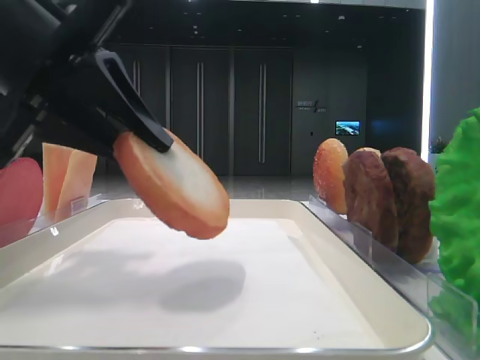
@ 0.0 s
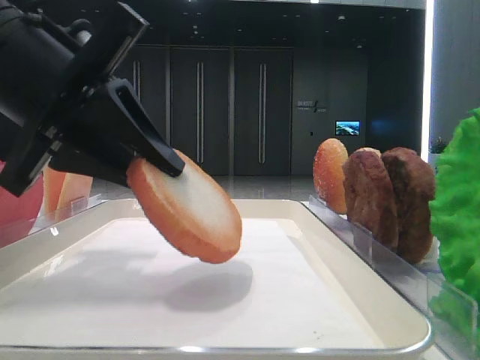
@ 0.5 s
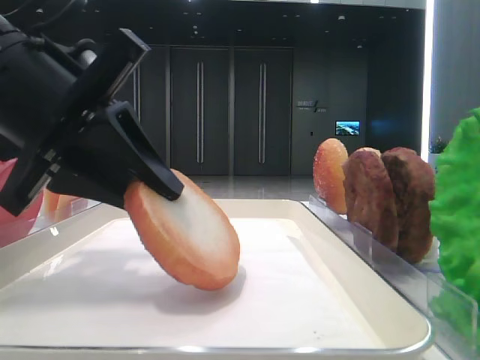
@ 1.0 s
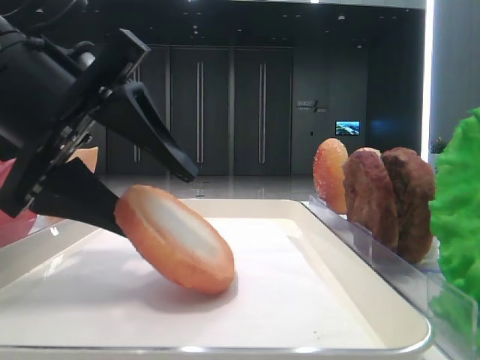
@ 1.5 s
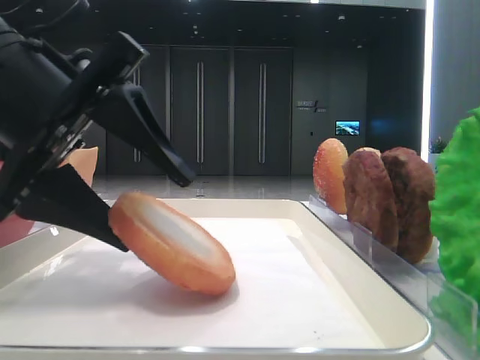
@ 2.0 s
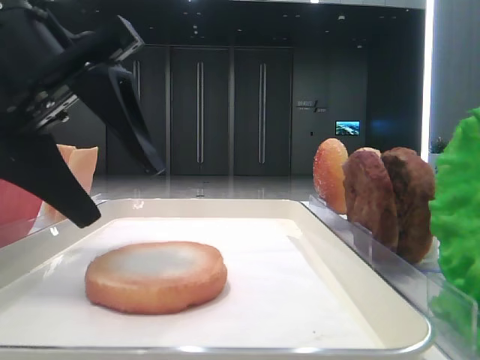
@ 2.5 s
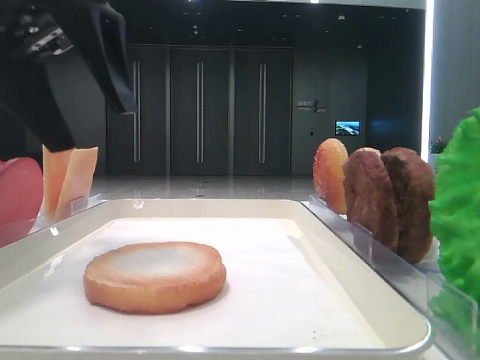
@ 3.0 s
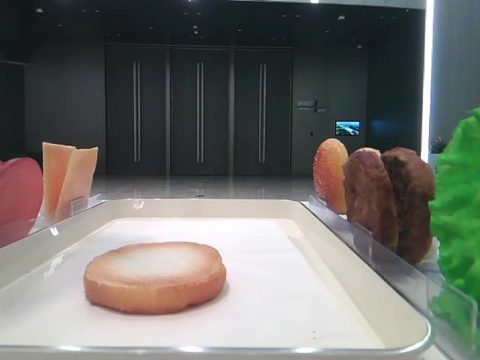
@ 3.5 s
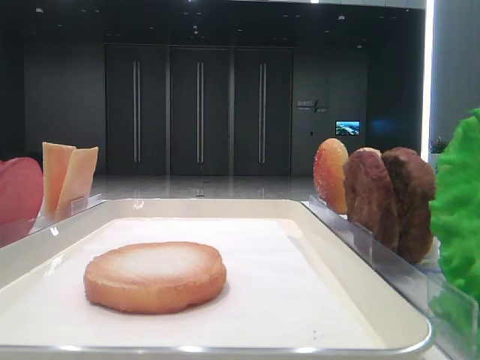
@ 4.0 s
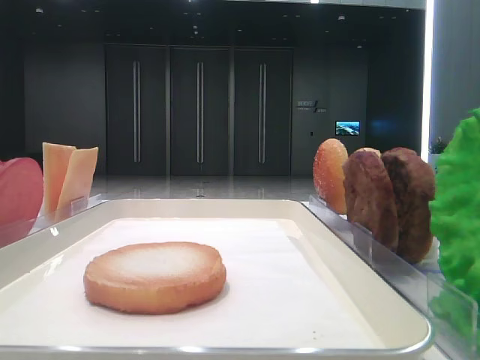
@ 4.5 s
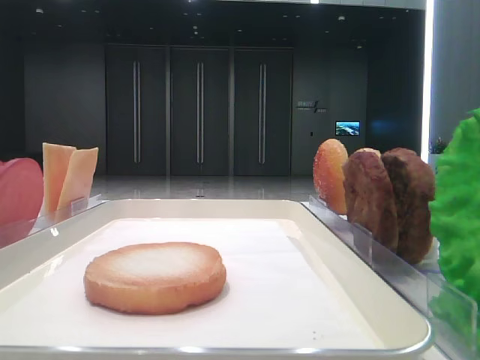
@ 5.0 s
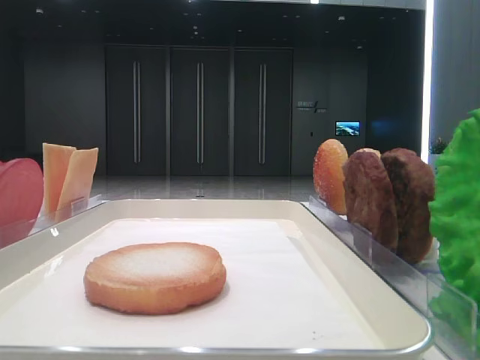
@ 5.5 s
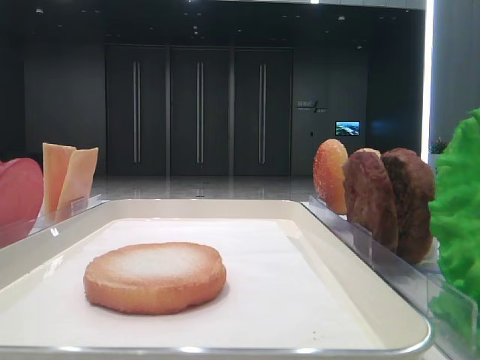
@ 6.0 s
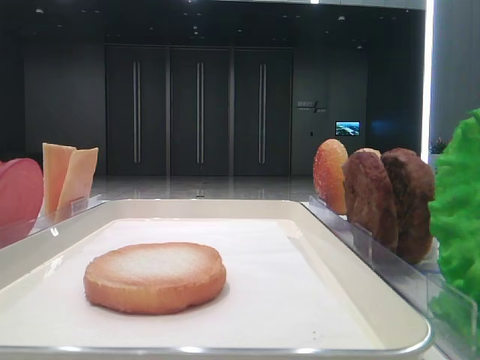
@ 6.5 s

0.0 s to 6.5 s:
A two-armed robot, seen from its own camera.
Step, 0.0 to 2.0 s: Place the bread on the tray with the left hand.
0.0 to 2.0 s: The left gripper opens.
2.0 to 4.5 s: The left gripper goes about 25 cm upward and to the left.

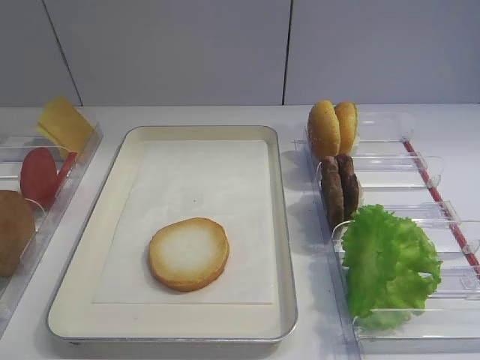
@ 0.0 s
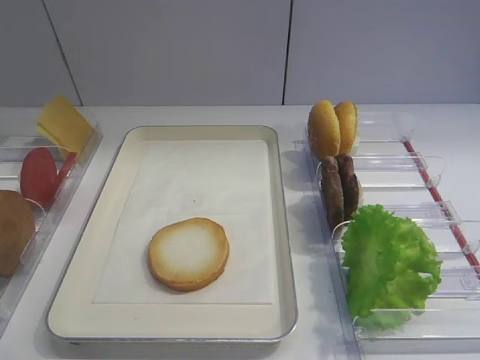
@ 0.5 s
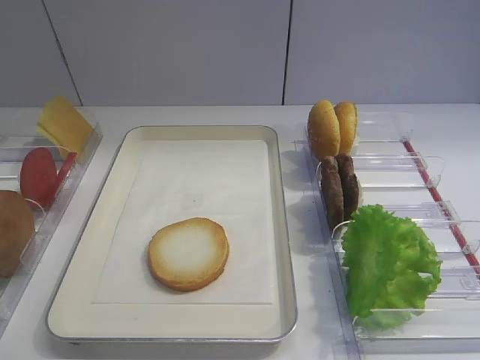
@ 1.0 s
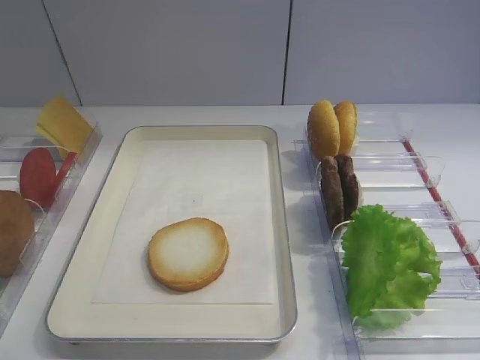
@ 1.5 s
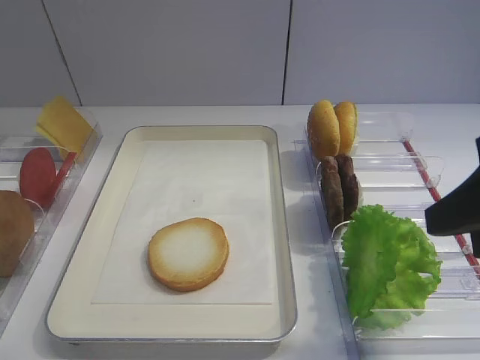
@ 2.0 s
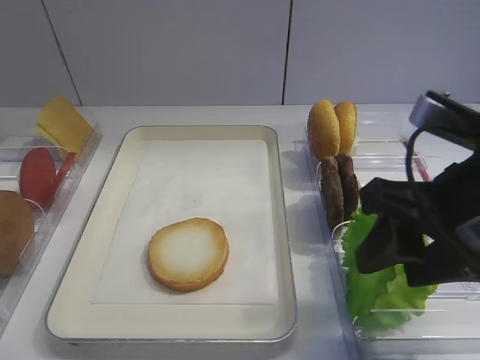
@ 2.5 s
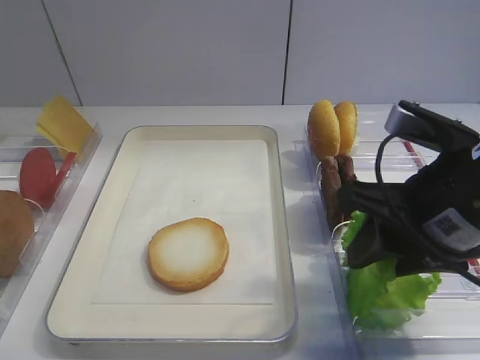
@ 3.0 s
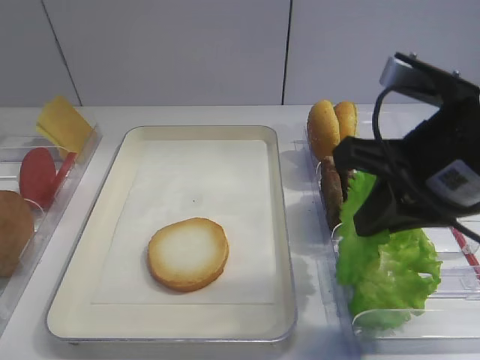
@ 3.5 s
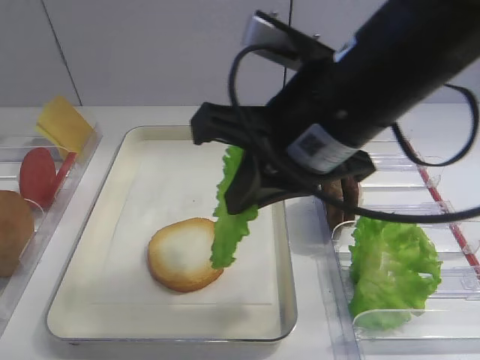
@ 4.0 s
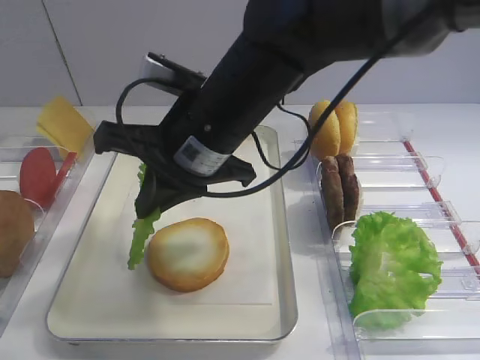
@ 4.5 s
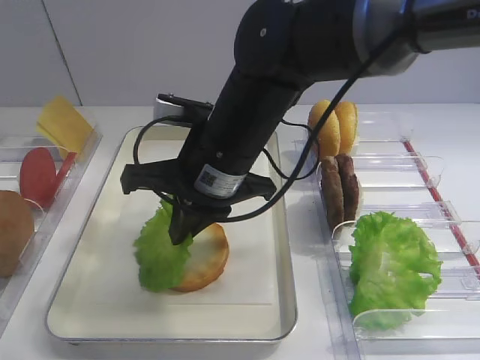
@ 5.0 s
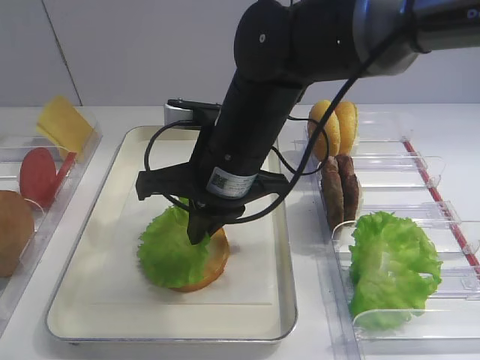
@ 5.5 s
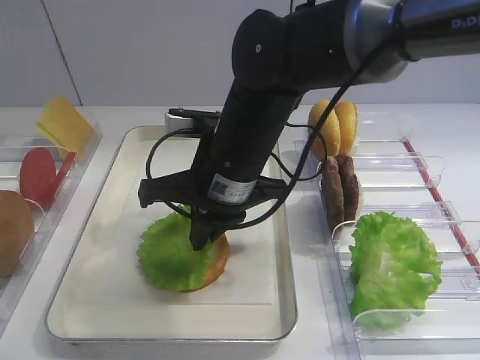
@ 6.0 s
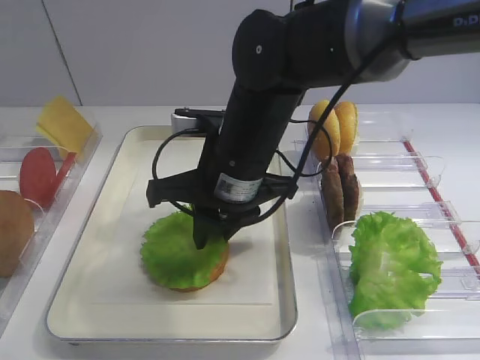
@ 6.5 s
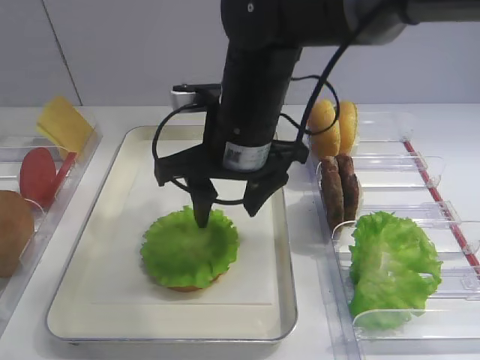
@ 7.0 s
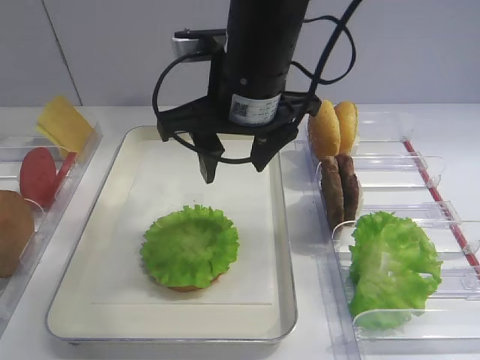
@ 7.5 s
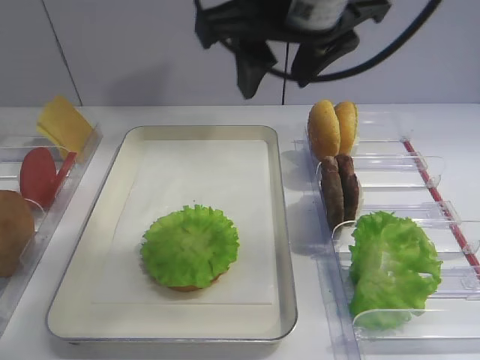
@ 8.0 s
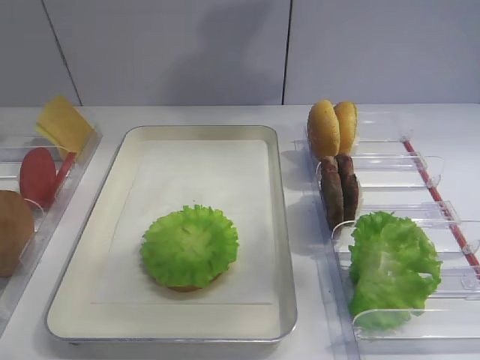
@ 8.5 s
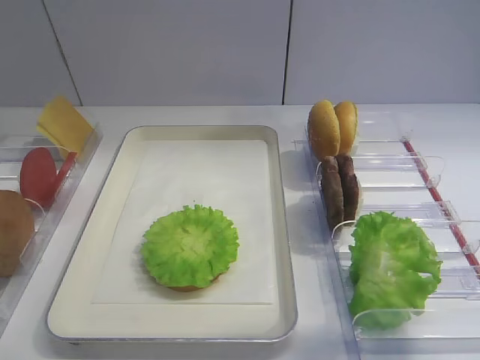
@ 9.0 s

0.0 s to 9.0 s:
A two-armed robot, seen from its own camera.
Step, 0.0 to 3.0 s: Pick up the lettuce leaf with the right gripper.
Step, 3.5 to 8.0 s: Place the lettuce leaf on the bread slice with the right gripper.
2.0 to 4.5 s: The right gripper is displaced to the left and forward by some 30 cm, and closes up.
4.5 to 7.0 s: The right gripper opens.
7.0 to 9.0 s: The right gripper is displaced to the right, upward and backward by approximately 30 cm.

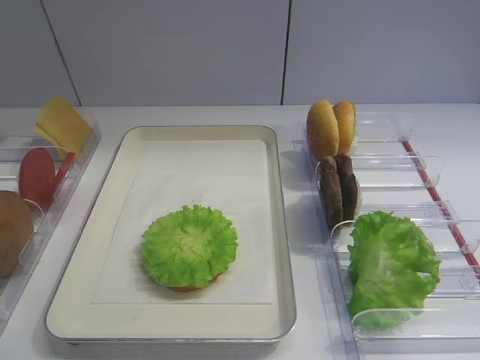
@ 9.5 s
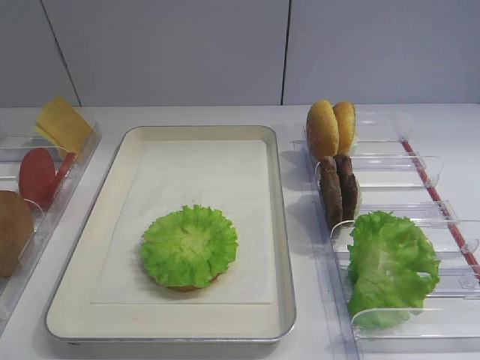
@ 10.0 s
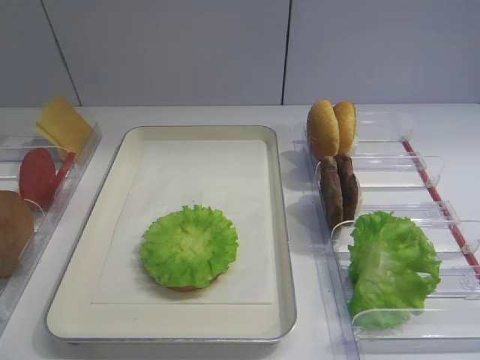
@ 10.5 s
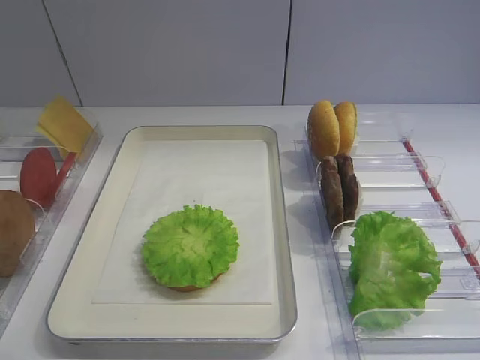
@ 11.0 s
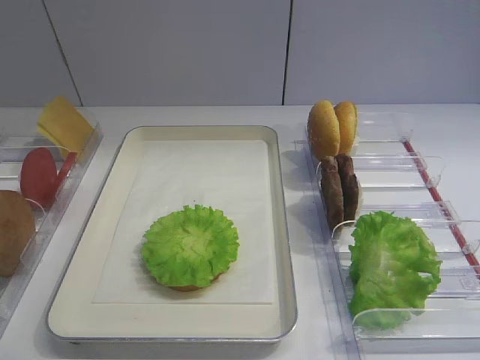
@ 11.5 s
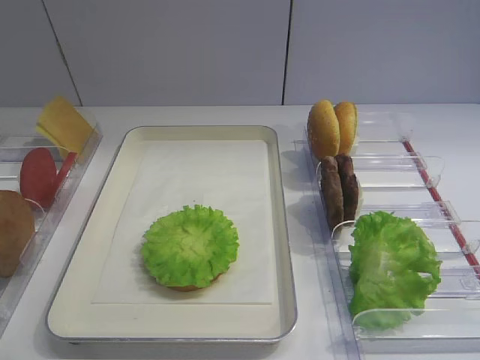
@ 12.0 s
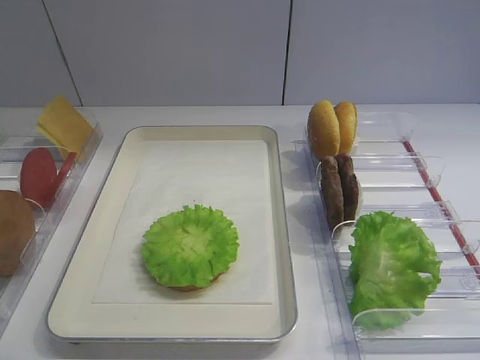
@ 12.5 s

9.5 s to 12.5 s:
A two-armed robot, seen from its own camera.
11.0 to 12.5 s: Both grippers stay put.

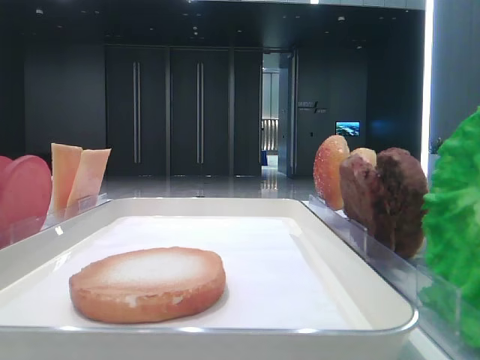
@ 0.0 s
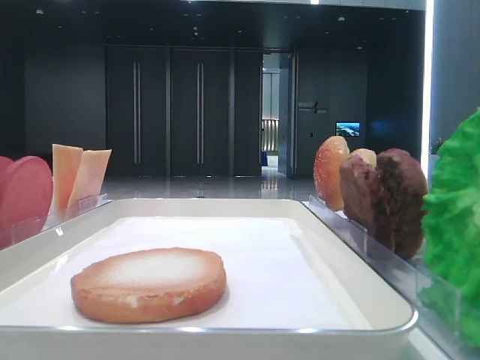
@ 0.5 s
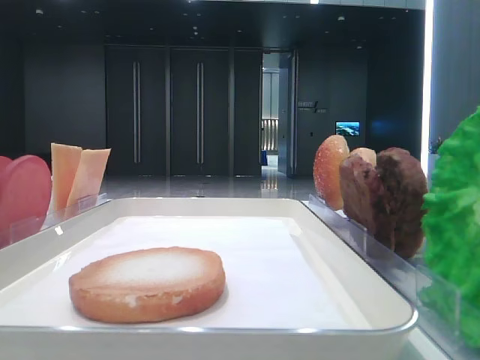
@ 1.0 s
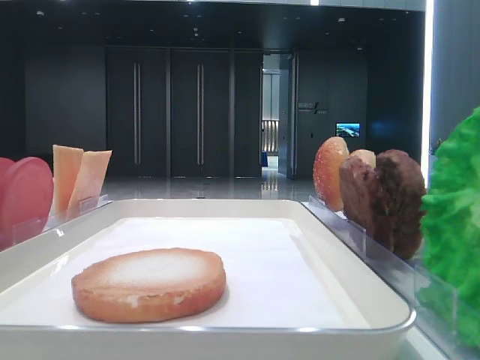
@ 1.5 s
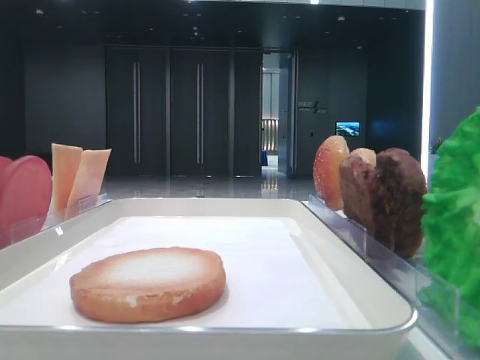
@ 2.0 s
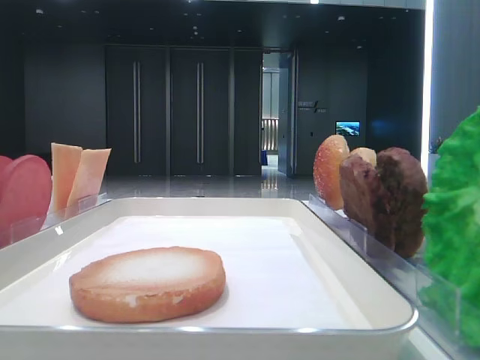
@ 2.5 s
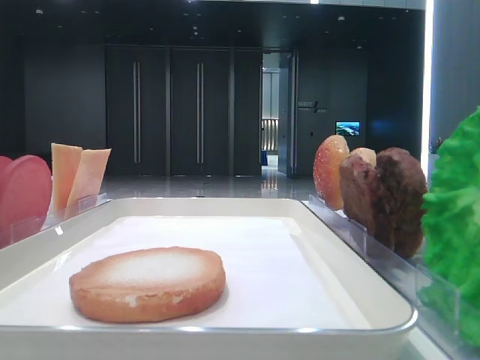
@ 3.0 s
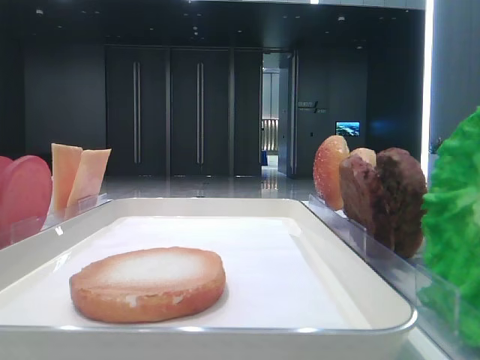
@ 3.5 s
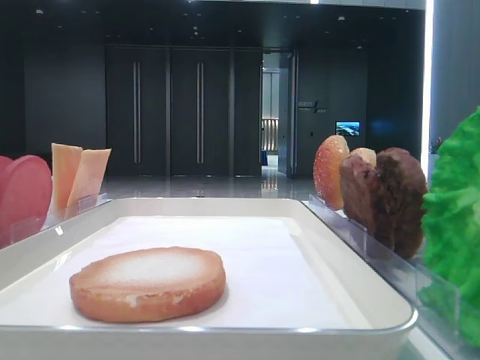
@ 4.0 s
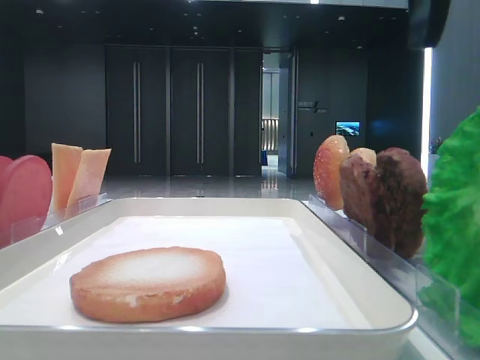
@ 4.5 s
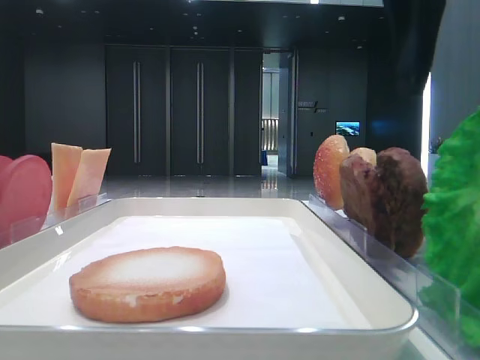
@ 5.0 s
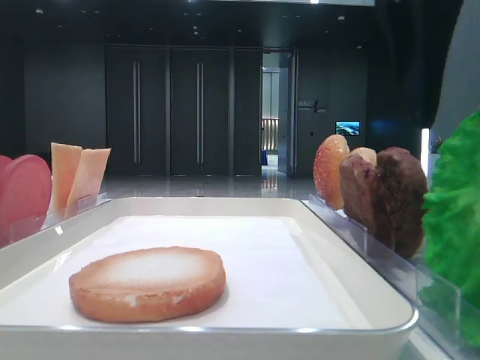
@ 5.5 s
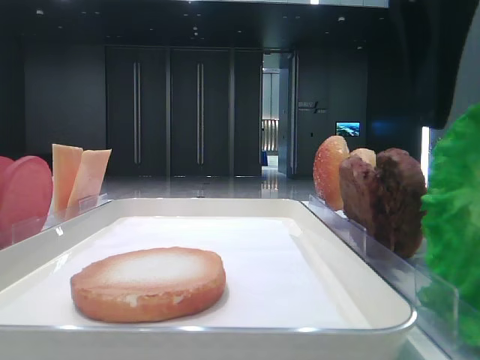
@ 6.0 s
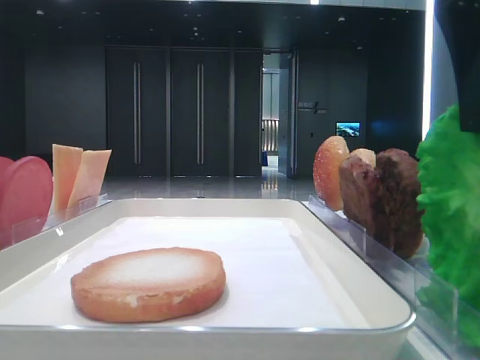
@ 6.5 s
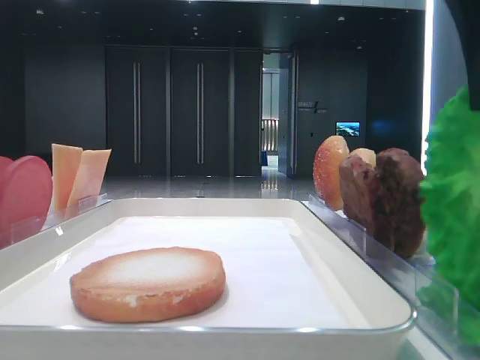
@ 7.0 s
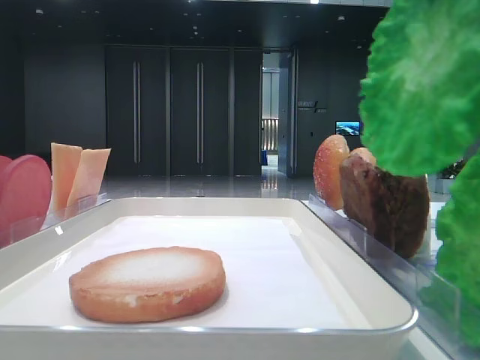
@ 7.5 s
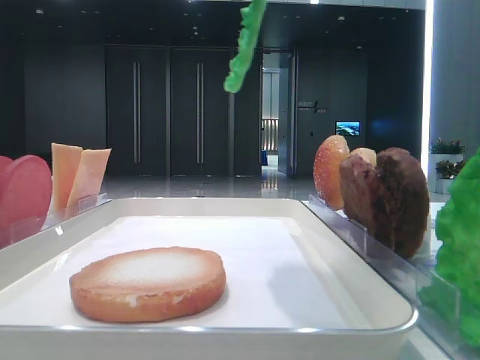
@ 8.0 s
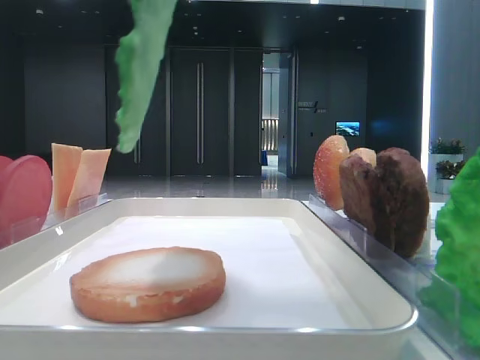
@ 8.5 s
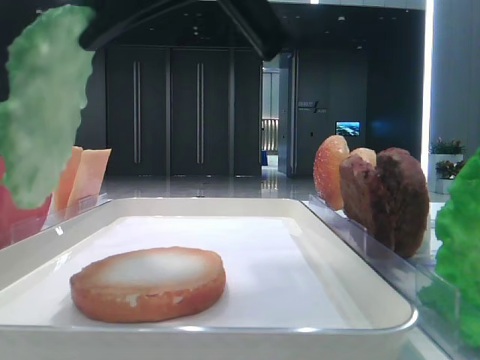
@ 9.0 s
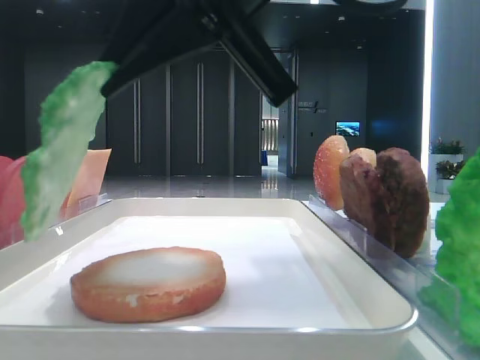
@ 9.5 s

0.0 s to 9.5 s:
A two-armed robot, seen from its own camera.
Step, 0.0 to 6.5 s: Grab the lettuce leaf with the right hand.
4.0 to 5.5 s: The right gripper is displaced downward by approximately 5 cm.
5.5 to 7.5 s: The right gripper is displaced upward by about 5 cm, and closes its fingers.
7.5 to 9.5 s: The right gripper is displaced to the left, downward and forward by about 15 cm.
